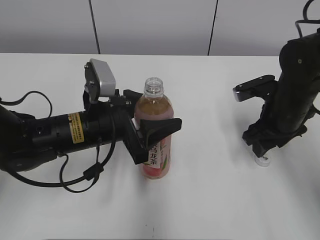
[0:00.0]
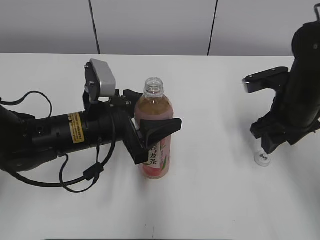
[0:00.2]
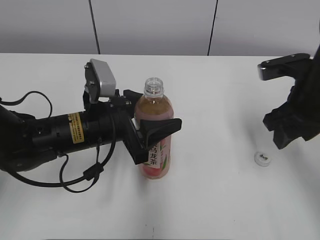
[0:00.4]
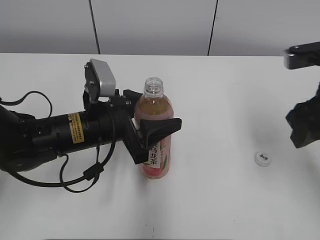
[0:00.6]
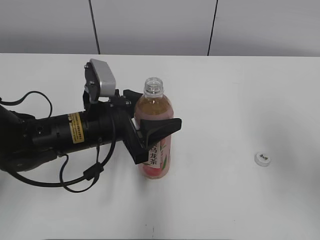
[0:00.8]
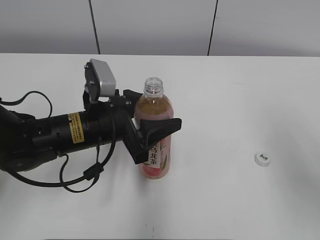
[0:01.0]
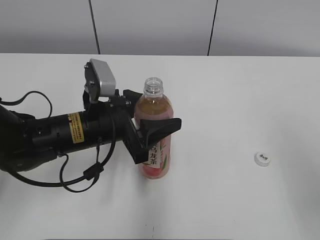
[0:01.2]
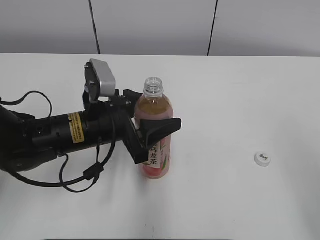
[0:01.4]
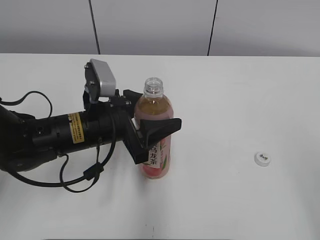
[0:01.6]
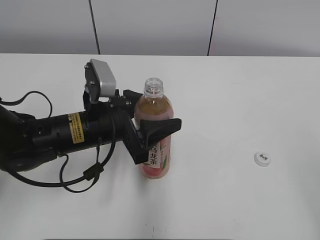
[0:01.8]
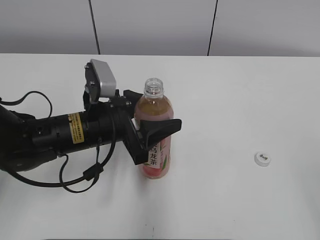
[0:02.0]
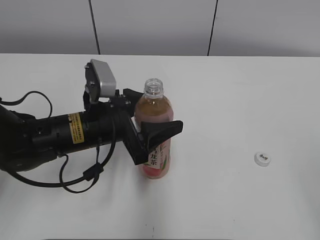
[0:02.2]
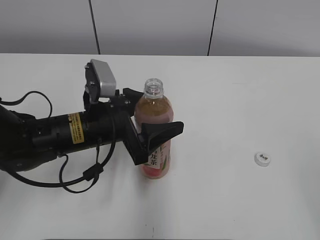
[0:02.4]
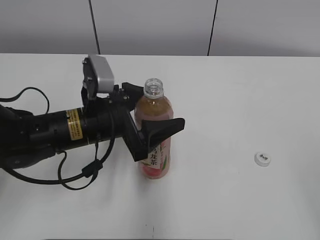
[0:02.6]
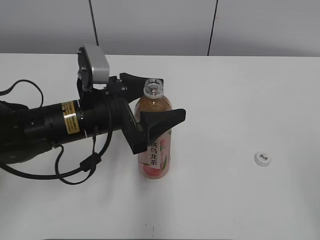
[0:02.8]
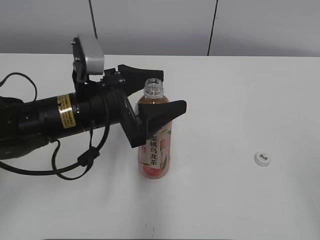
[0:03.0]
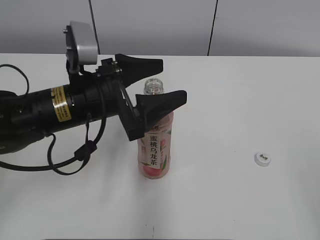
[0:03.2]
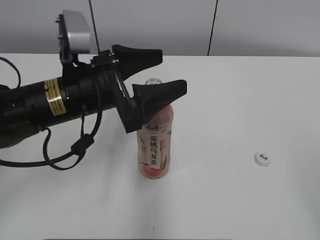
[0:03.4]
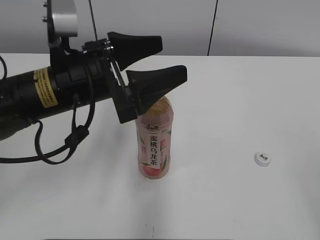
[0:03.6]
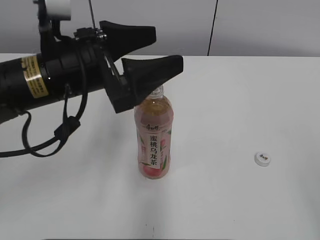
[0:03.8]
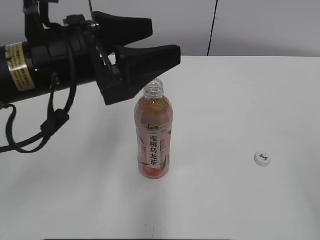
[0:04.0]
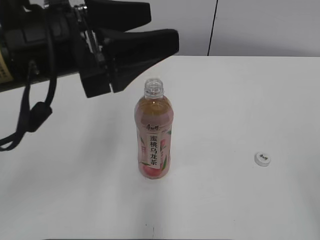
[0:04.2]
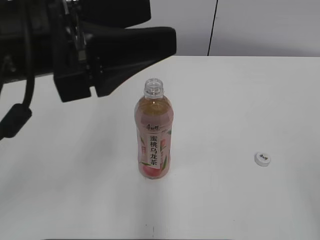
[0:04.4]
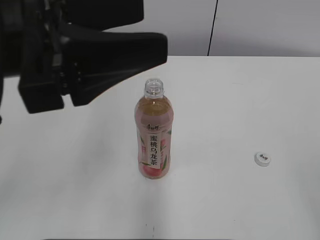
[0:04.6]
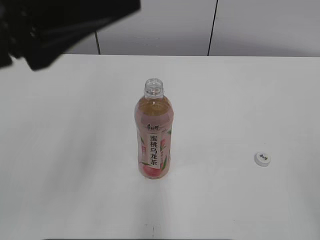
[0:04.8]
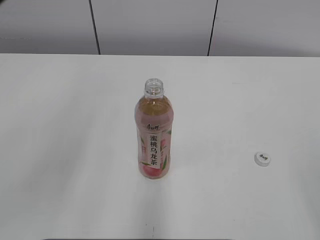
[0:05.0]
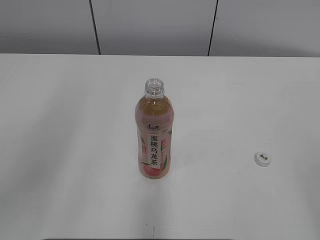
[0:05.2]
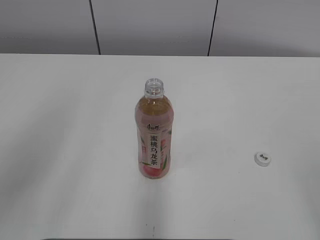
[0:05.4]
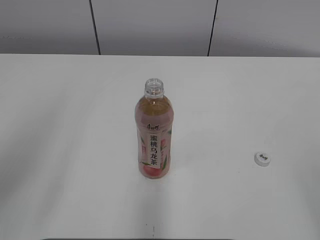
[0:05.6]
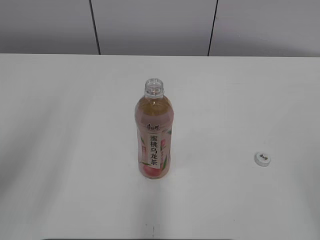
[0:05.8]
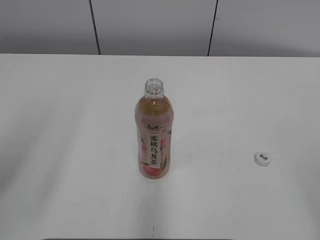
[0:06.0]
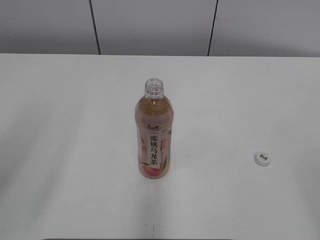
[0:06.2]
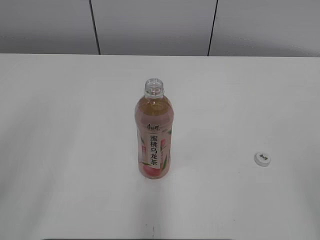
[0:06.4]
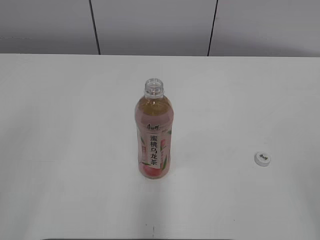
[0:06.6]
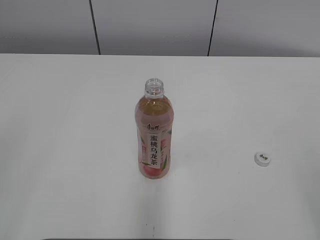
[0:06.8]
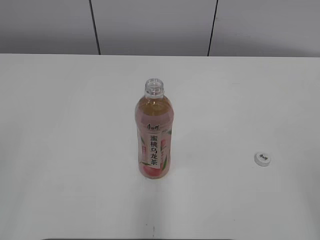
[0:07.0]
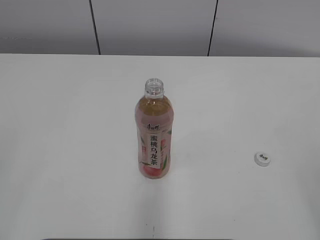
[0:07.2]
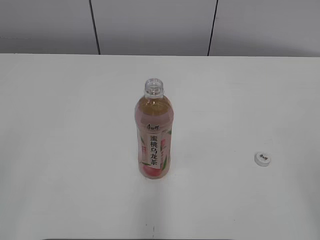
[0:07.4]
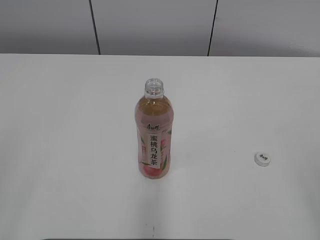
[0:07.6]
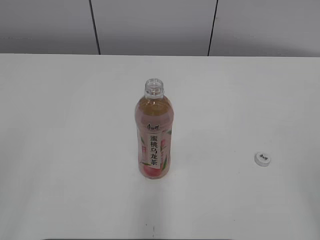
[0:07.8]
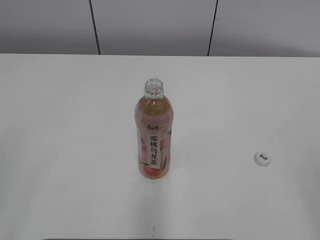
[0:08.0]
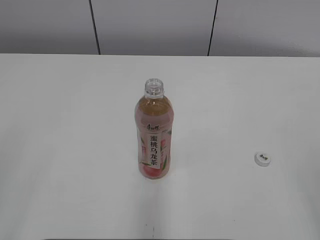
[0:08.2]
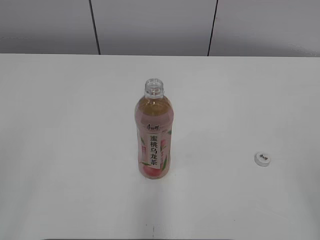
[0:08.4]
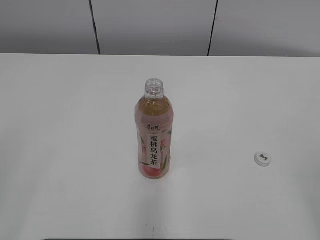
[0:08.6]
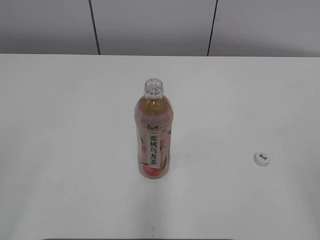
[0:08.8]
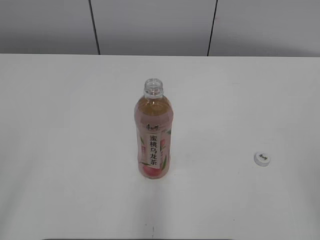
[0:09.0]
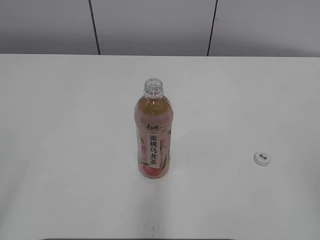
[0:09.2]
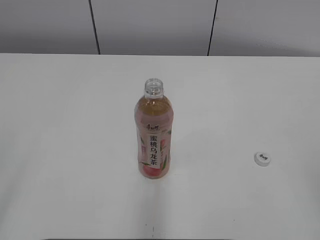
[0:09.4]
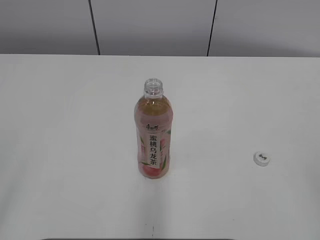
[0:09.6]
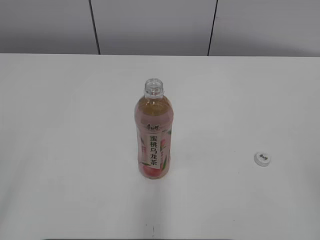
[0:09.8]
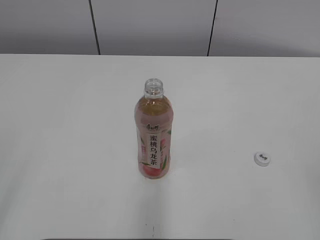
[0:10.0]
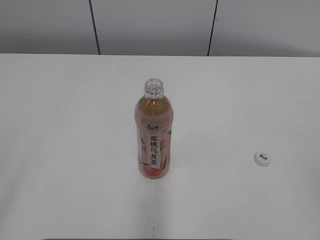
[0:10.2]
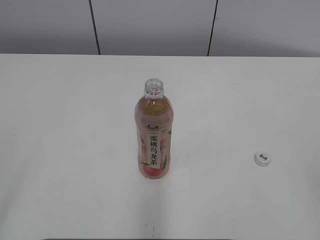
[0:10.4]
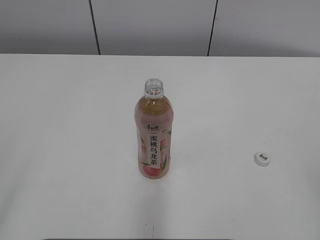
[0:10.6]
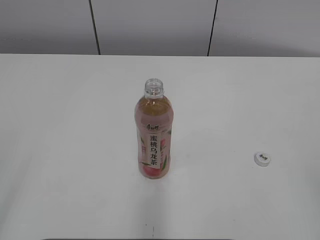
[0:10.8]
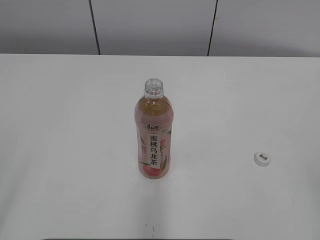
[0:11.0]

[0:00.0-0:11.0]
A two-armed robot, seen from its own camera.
Step, 0:00.8 to 0:03.8: Place the Peach Oolong Tea with the left hand.
0:00.0 to 0:01.6: The right gripper shifts some 30 cm backward and upward.
0:01.6 to 0:03.2: The left gripper shifts about 5 cm upward, and opens up.
0:03.2 to 0:04.8: The left gripper is displaced upward and backward by approximately 15 cm.
0:04.8 to 0:06.2: The left gripper travels to the left and backward by about 15 cm.

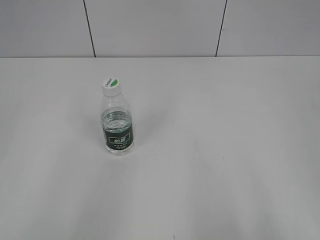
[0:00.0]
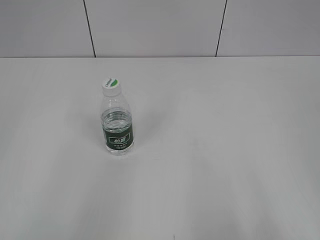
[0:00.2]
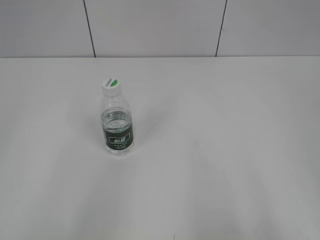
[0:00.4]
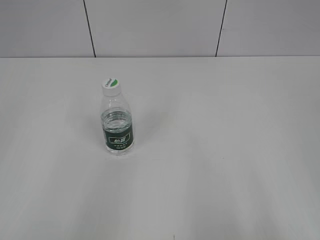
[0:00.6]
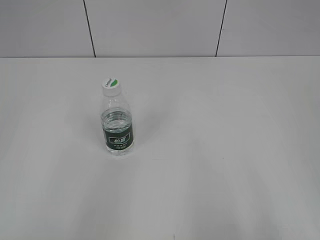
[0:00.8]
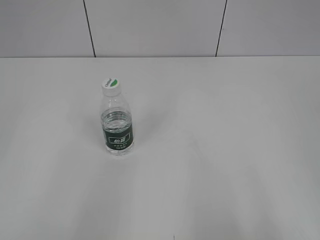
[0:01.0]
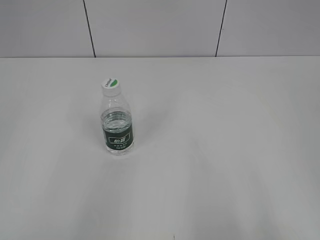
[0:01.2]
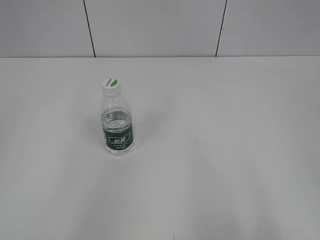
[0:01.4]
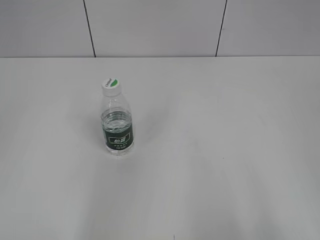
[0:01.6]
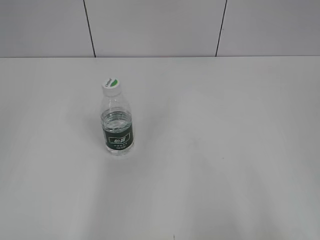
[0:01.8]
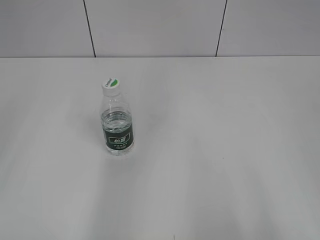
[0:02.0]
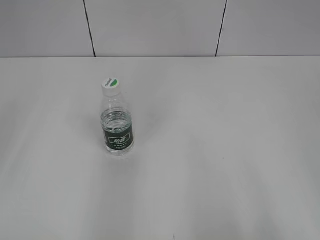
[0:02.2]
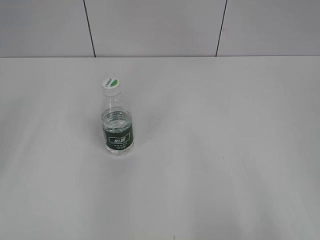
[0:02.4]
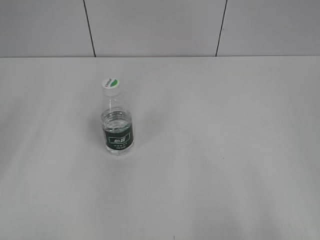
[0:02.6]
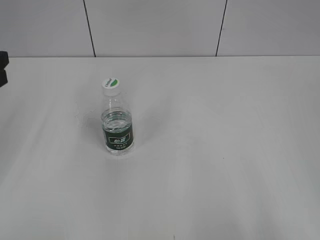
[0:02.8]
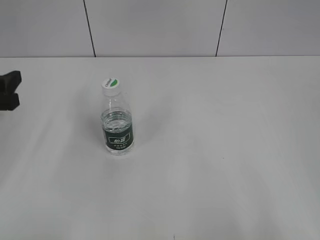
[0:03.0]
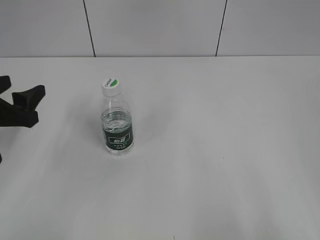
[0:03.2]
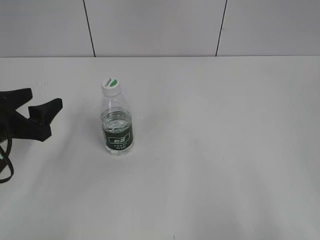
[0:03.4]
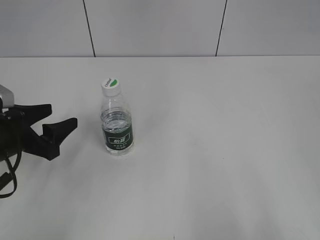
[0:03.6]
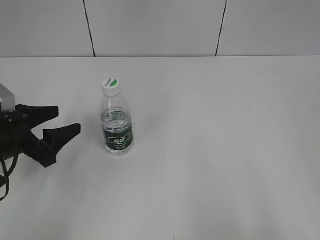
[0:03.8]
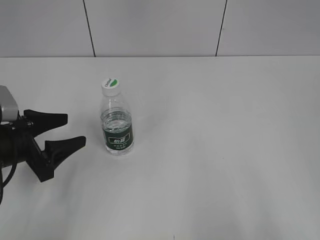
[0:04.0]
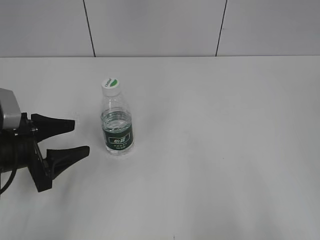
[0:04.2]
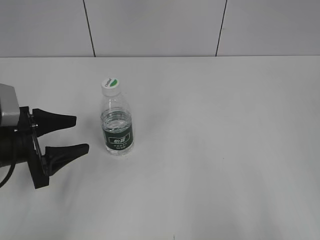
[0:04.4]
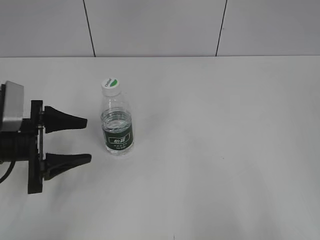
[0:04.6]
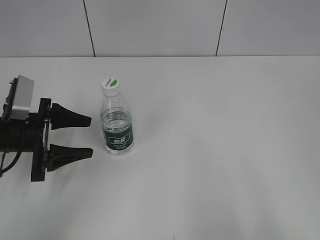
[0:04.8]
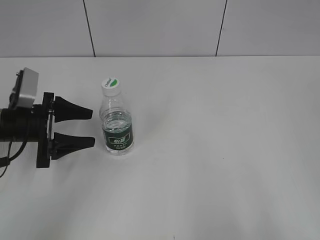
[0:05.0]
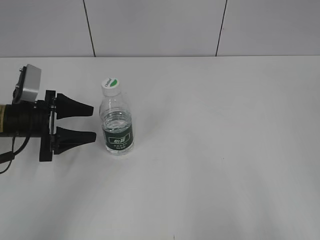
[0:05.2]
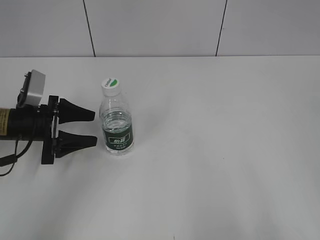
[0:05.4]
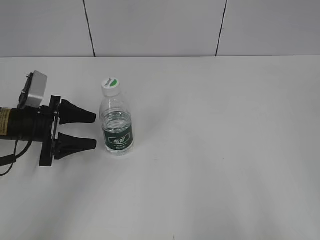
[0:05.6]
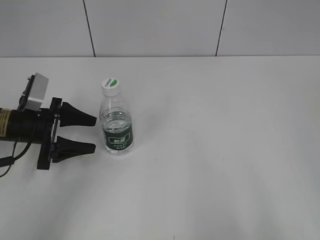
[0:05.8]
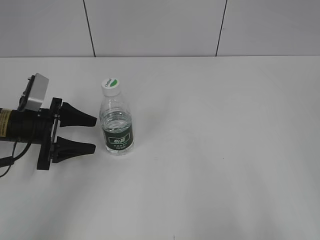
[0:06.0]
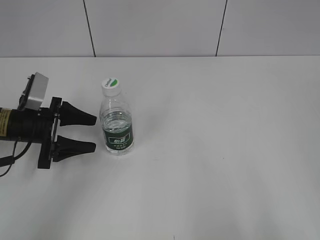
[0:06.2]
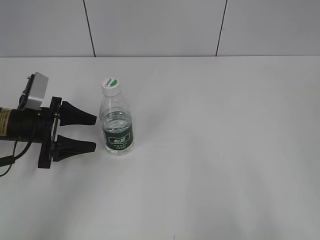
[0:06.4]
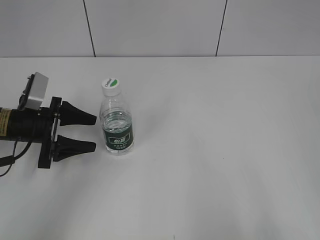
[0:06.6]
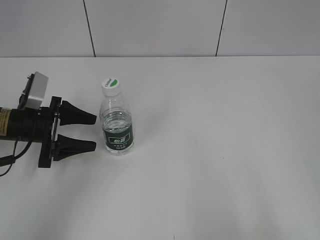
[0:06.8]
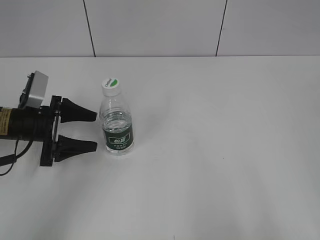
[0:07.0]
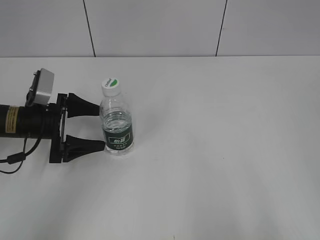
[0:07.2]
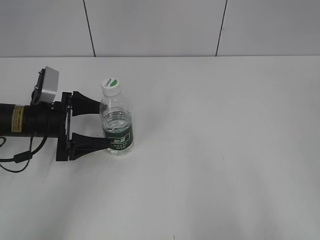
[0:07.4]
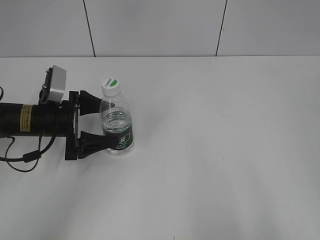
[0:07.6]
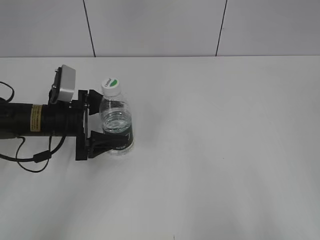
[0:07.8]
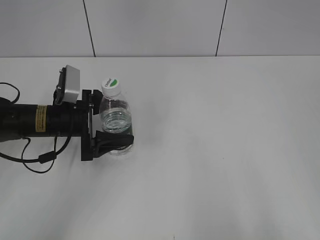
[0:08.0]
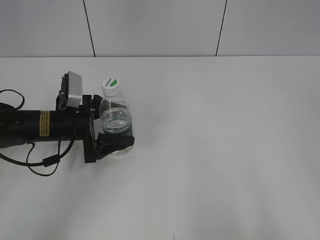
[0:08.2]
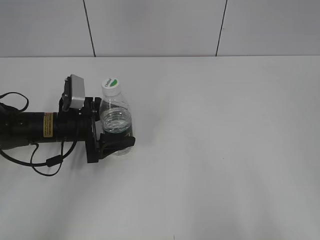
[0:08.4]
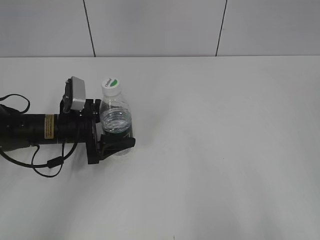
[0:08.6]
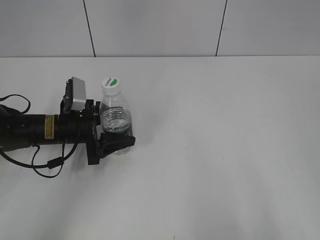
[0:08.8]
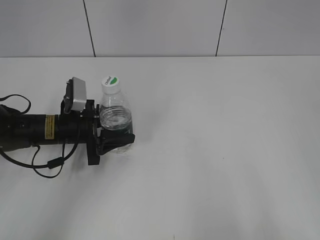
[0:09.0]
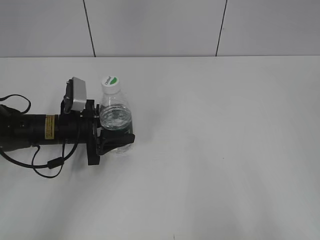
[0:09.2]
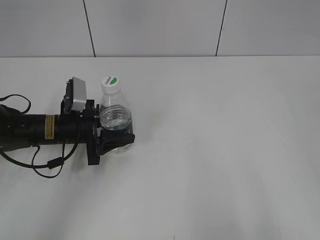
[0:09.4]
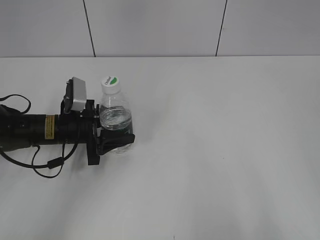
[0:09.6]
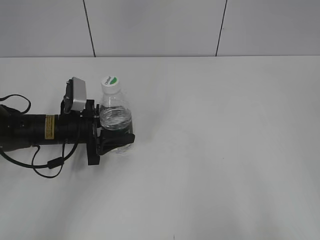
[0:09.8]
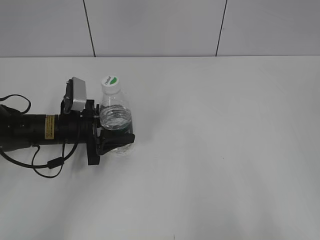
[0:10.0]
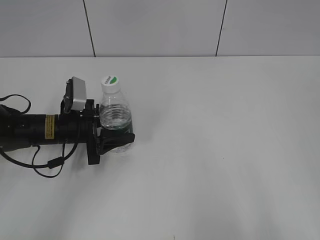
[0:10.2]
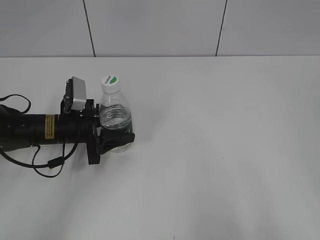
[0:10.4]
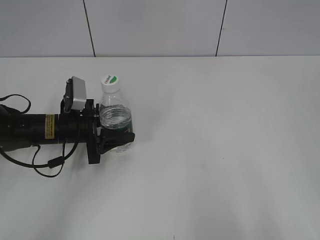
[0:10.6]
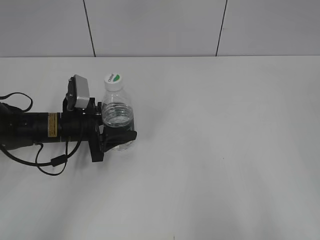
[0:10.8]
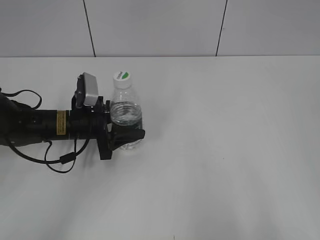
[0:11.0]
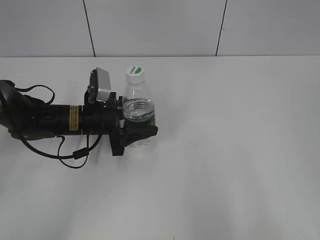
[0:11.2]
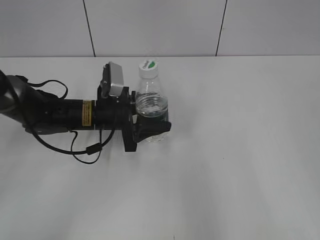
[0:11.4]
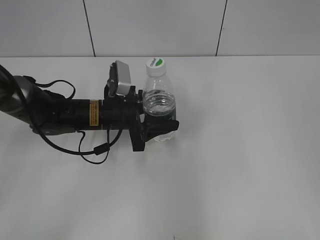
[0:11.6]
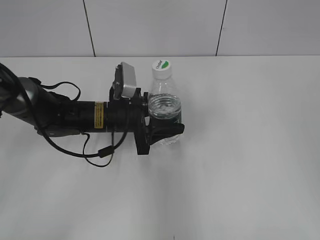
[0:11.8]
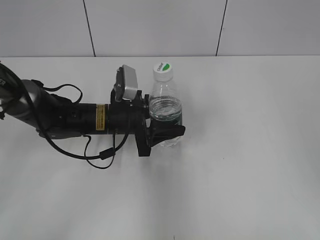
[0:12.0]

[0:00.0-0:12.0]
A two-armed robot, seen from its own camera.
Step, 0:00.0 to 0:09.6: Grasp the bottle and move it to the center of the table with the left gripper.
0:01.6 to 0:03.0: The left gripper travels forward and downward by about 25 cm.
0:03.0 to 0:04.4: The left gripper goes approximately 10 cm downward.
0:04.4 to 0:06.0: The left gripper travels forward by about 10 cm.
0:06.0 to 0:07.6: The grippers make only small movements.
0:07.6 to 0:09.0: The left gripper closes.
0:09.0 to 0:10.4: Both grippers stay put.
0:10.4 to 0:12.0: The left gripper is displaced to the right by roughly 10 cm; the right gripper is displaced forward by about 15 cm.
